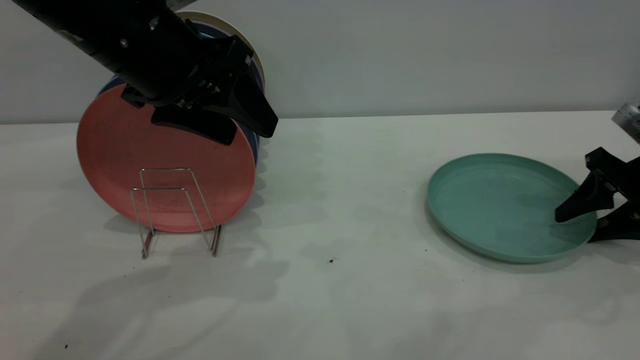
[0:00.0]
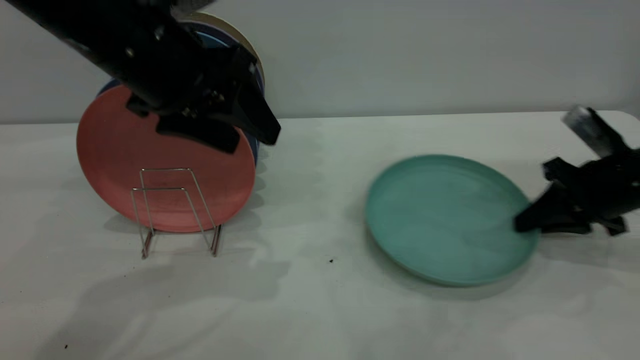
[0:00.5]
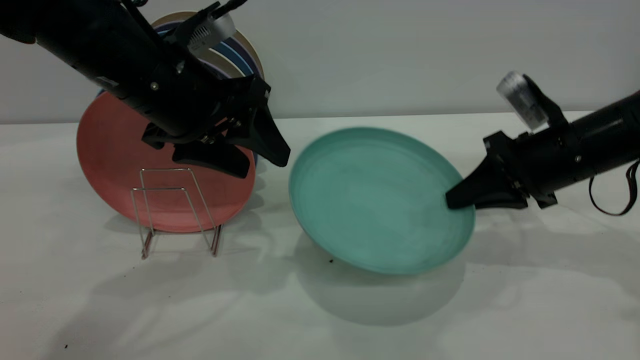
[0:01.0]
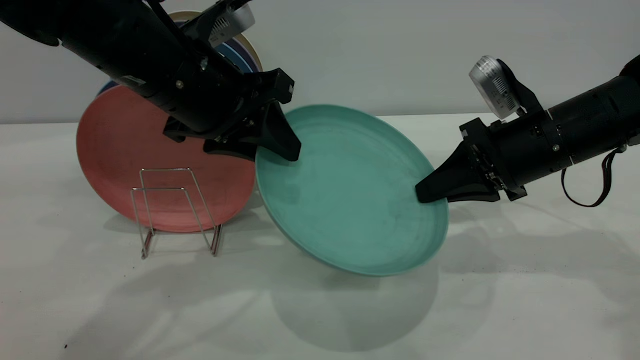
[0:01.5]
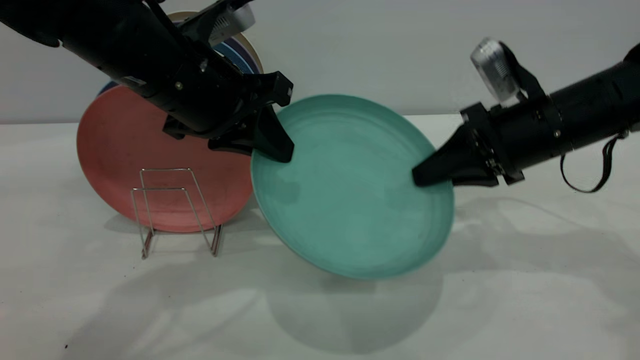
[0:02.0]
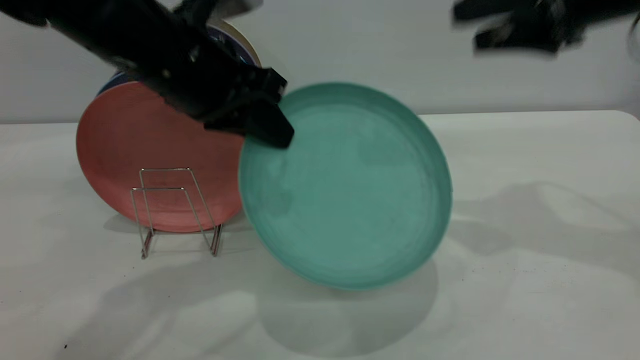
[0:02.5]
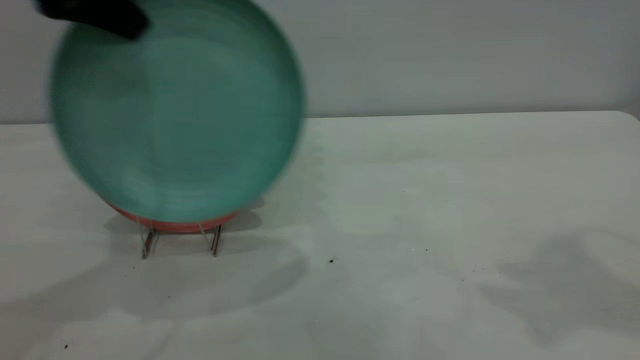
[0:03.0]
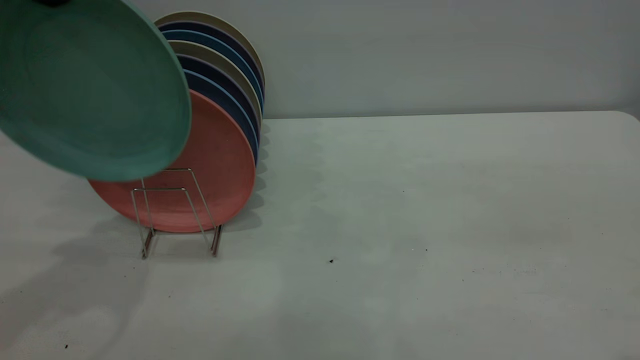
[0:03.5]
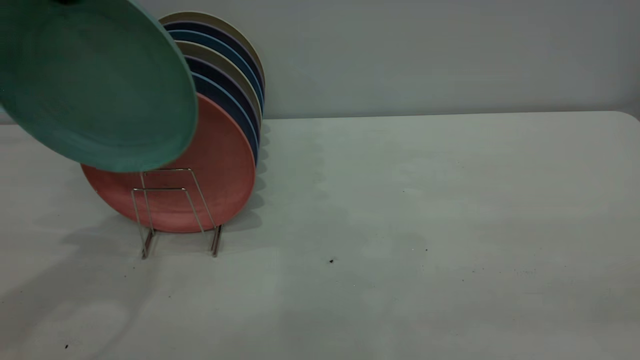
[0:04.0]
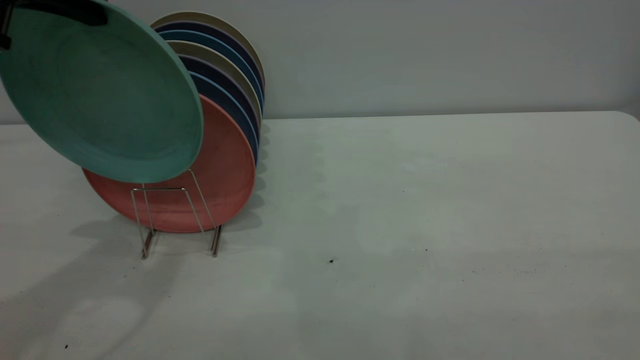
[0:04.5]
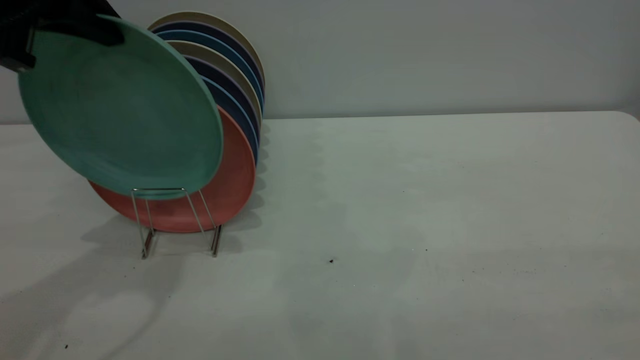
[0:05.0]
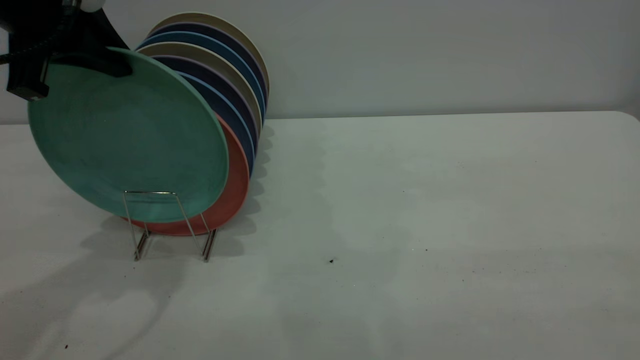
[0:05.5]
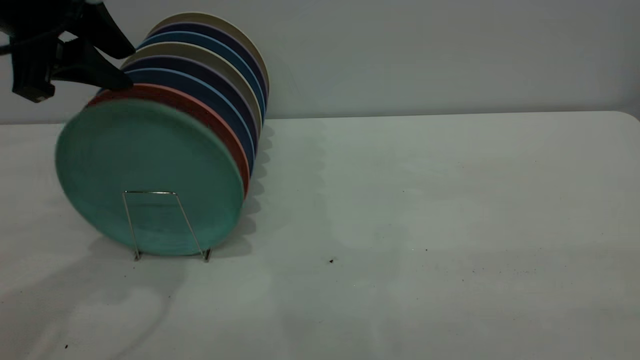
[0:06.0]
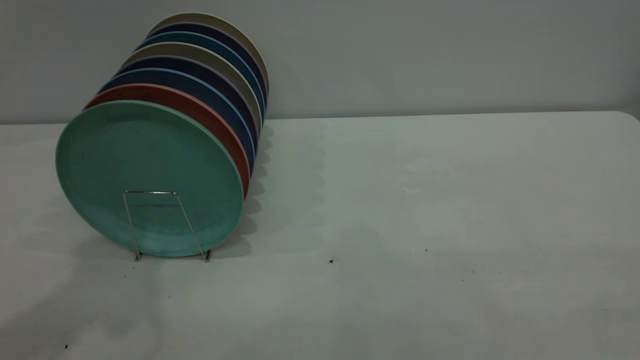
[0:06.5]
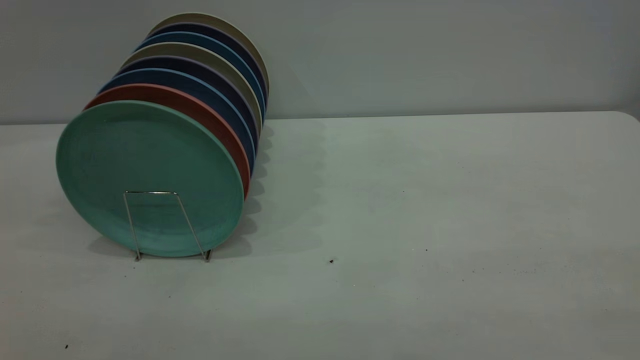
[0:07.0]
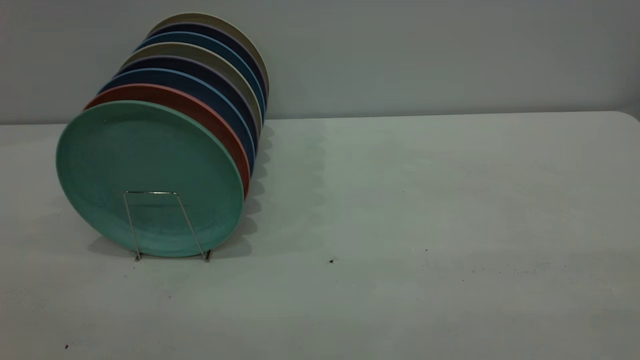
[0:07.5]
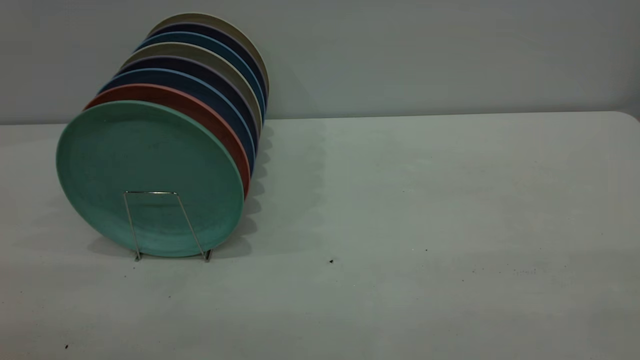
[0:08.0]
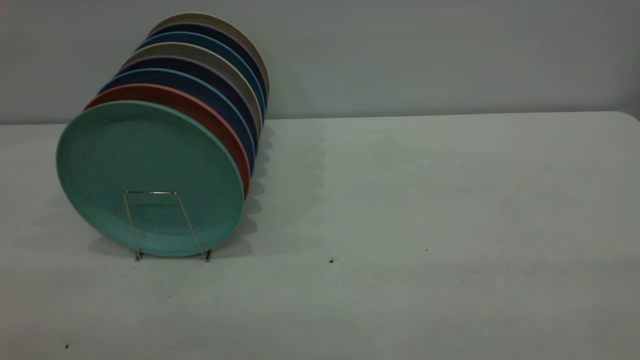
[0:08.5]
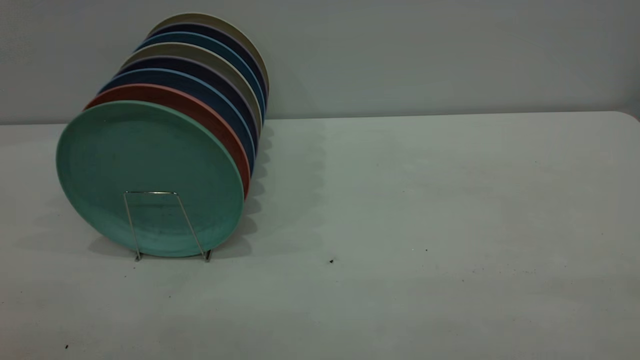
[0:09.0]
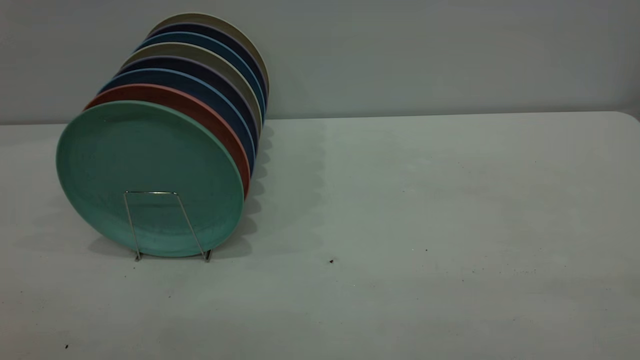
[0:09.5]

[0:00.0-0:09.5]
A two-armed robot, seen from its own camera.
Task of the whole recording: the right gripper grasp the green plate, the right gripper pass the green plate to the left gripper, and the left gripper place the green plate on the plate rack.
Step, 0:01.0 to 0:02.0: Pass the plate from the right gripper to the left gripper.
Step, 0:02.5 to 0:06.0: Place the plate on the shelf.
0:00.0 to 0:02.0: The right gripper heads to the left and upward, covering about 15 cm, and closes its fingers; the left gripper closes its fingers.
0:02.0 to 0:04.0: The left gripper shifts roughly 20 cm upward and to the left. Meanwhile the right gripper heads backward and upward, covering approximately 40 cm, and opens its fingers.
0:04.0 to 0:05.5: The left gripper is displaced downward by approximately 5 cm.
0:05.5 to 0:07.5: The left gripper heads backward, covering some 30 cm, and opens.
